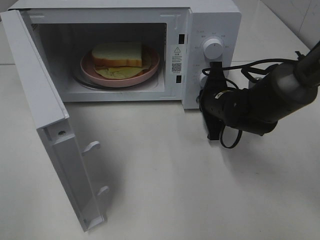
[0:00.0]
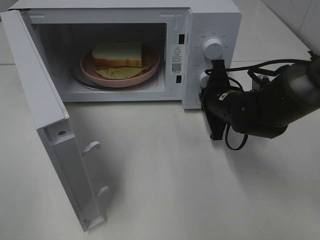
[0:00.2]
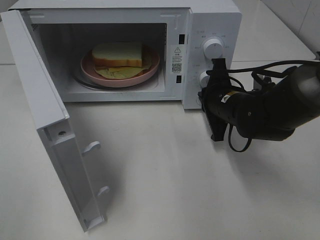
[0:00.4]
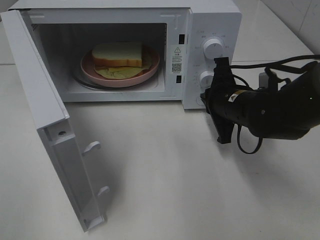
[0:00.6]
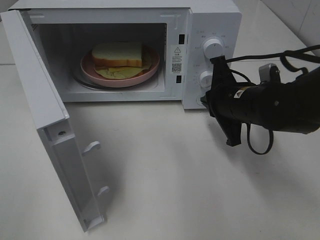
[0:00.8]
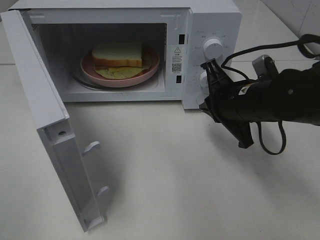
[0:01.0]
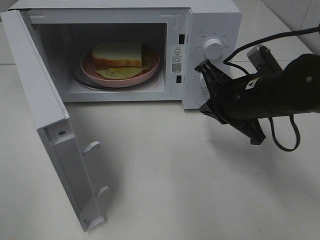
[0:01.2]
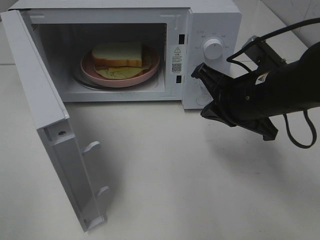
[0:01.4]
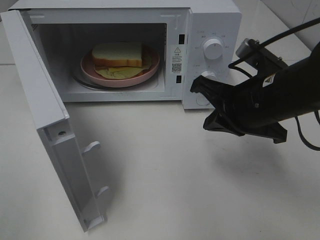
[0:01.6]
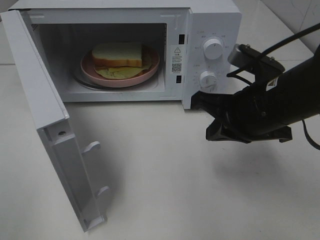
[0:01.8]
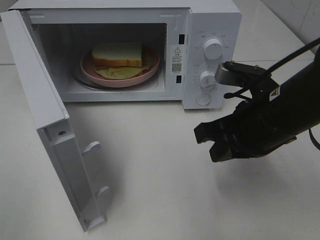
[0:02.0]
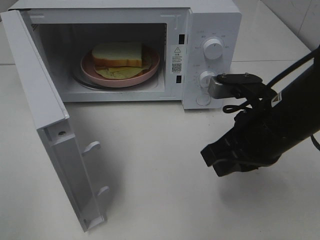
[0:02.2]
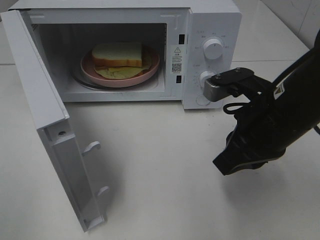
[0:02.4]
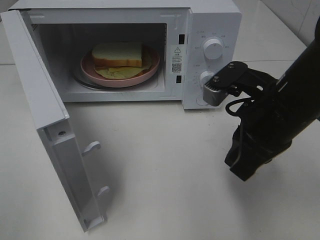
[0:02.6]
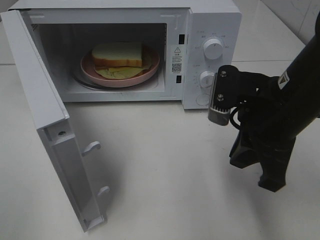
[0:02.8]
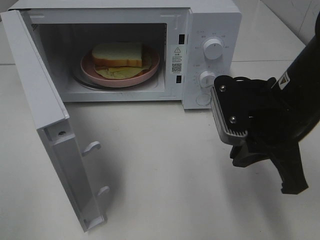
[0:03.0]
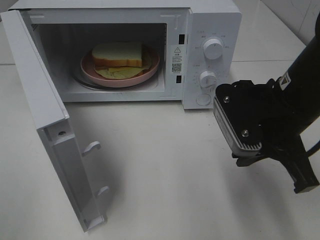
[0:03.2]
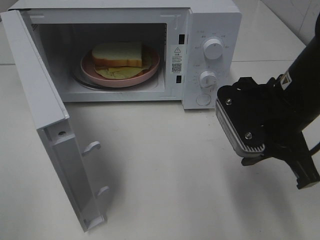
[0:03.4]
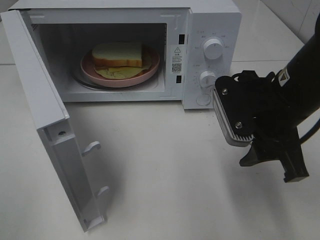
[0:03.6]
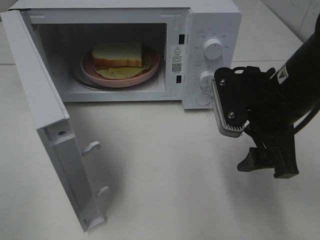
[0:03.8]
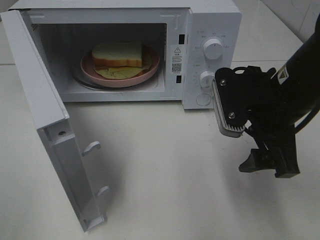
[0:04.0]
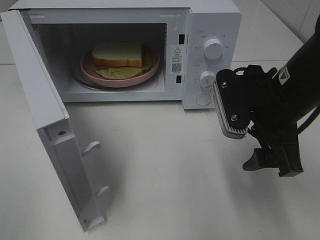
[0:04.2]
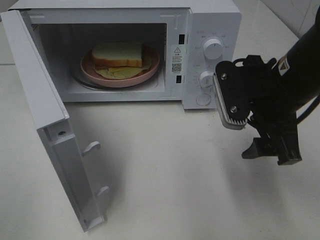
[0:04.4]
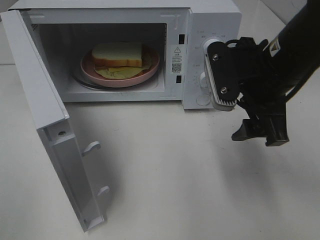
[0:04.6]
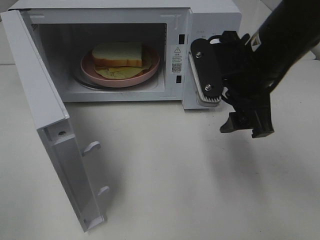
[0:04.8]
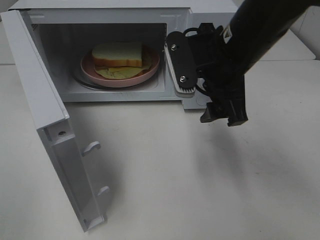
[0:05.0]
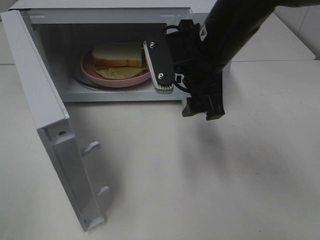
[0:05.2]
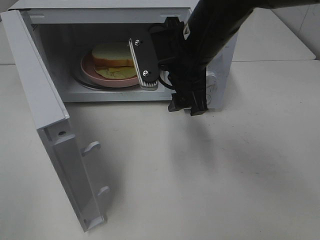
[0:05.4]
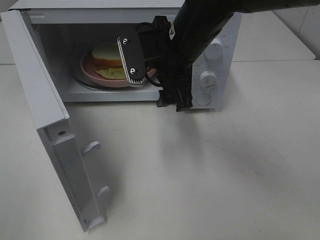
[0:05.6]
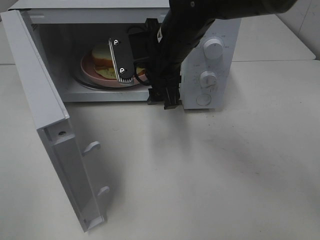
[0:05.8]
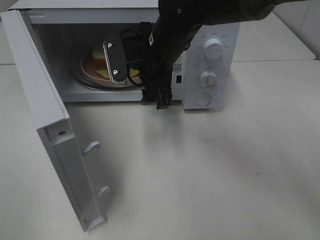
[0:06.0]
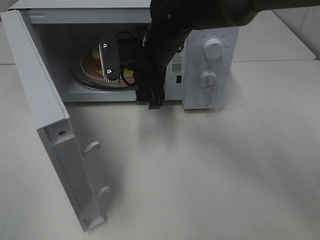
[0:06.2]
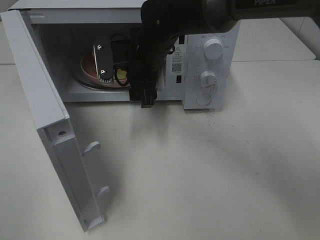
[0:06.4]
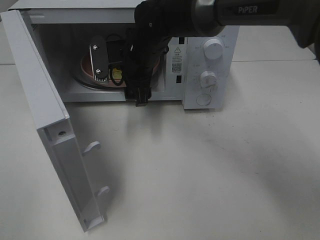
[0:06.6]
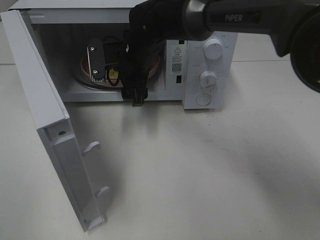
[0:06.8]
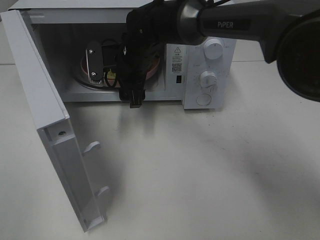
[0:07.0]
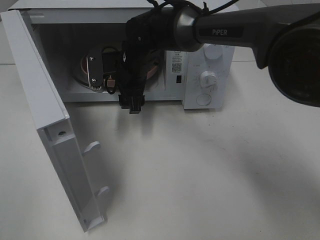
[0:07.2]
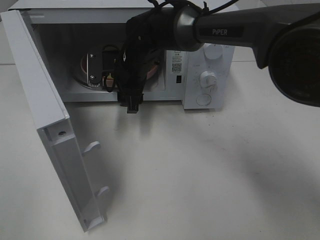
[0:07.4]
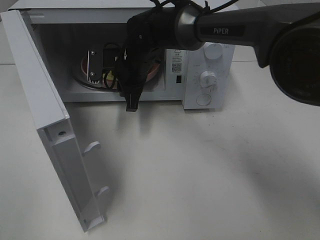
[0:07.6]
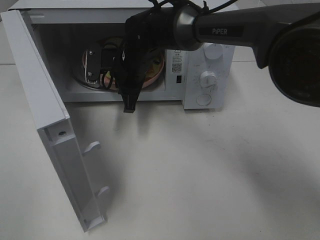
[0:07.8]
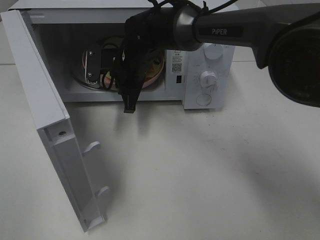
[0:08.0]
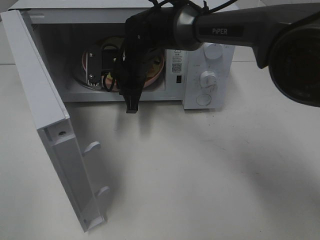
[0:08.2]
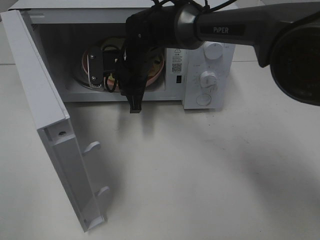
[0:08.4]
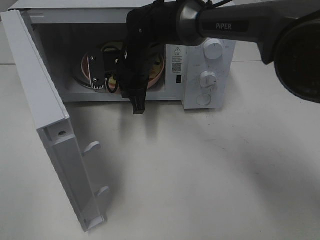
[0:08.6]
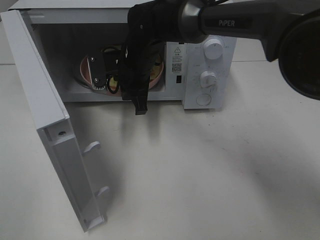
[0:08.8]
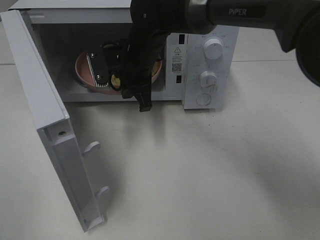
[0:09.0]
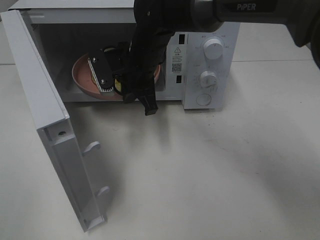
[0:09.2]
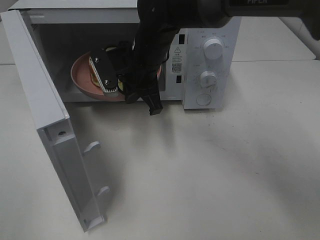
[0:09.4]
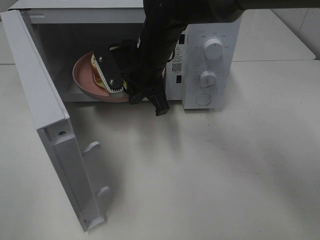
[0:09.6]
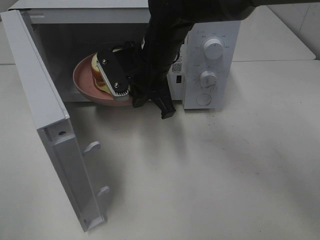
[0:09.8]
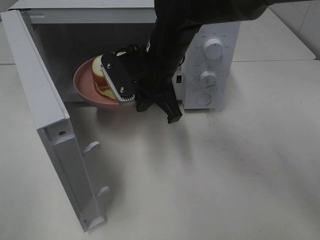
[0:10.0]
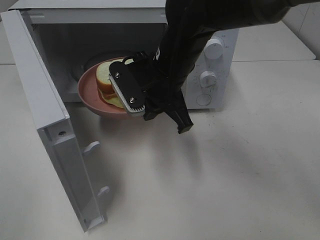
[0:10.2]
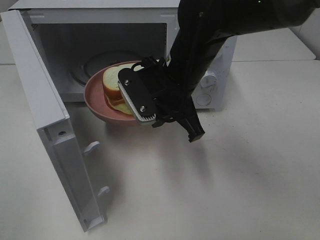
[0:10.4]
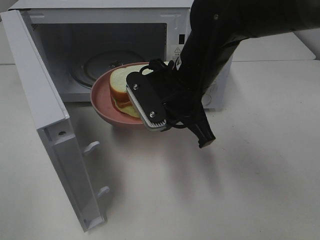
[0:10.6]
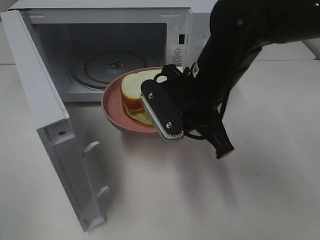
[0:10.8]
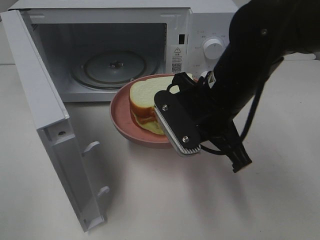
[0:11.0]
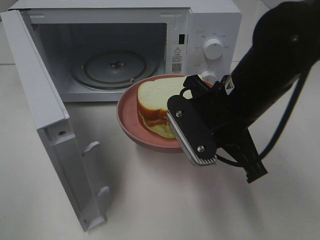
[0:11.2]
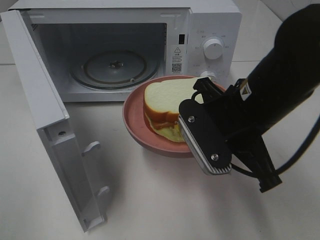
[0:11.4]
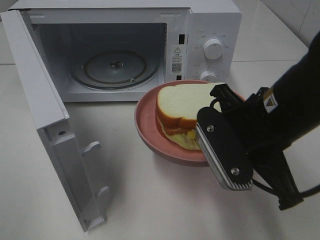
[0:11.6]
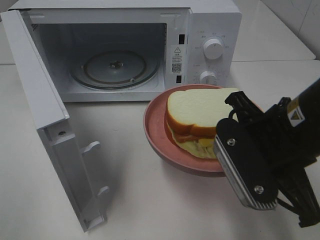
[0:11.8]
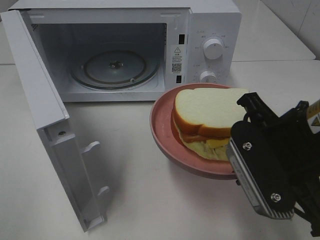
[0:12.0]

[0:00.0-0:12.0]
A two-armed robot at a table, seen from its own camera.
Task of the whole recording: Heat Sandwich.
Step, 0:00.4 to 0:08.8: Right hand: grab the plate with the sandwich.
0:00.0 to 0:01.6: The right gripper travels backward and upward by approximately 15 cm.
0:03.0 to 0:04.4: The right gripper opens up.
0:04.4 to 0:06.0: The right gripper shifts roughly 20 cm to the left and forward.
0:06.0 to 0:07.6: The right gripper heads forward and downward, covering approximately 10 cm, and closes.
0:07.6 to 0:09.0: The grippers stay close to where they were, moving slightly.
0:09.0 to 0:10.4: The right gripper goes about 10 cm backward and to the right.
0:10.4 to 0:12.0: The right gripper shifts approximately 20 cm backward and to the right.

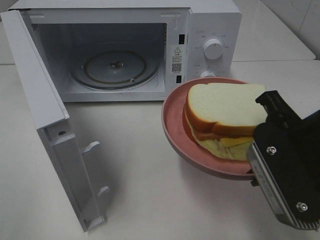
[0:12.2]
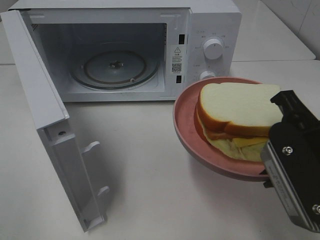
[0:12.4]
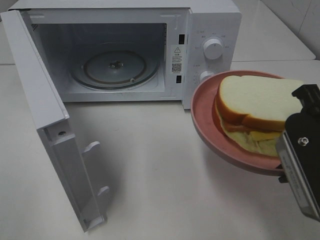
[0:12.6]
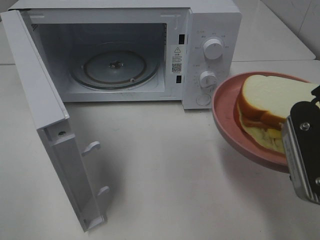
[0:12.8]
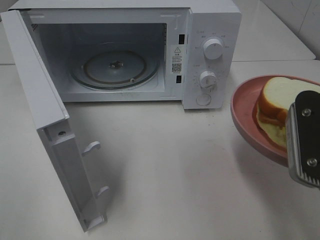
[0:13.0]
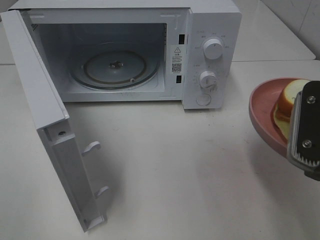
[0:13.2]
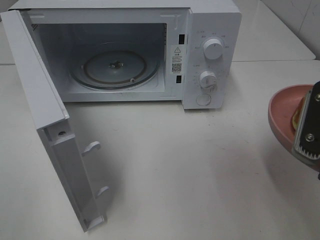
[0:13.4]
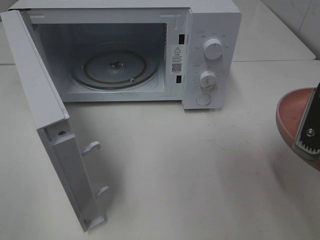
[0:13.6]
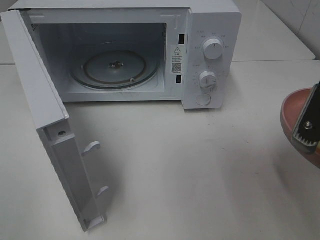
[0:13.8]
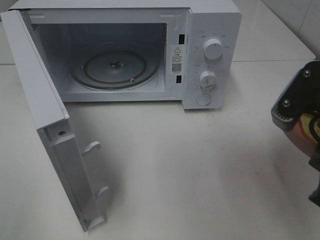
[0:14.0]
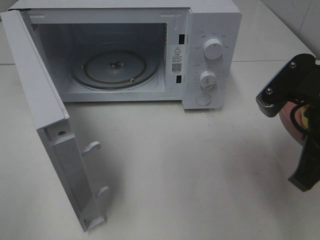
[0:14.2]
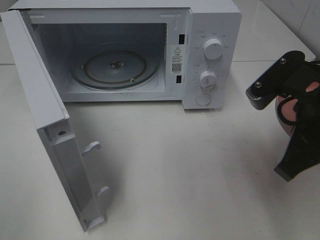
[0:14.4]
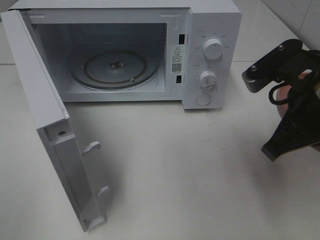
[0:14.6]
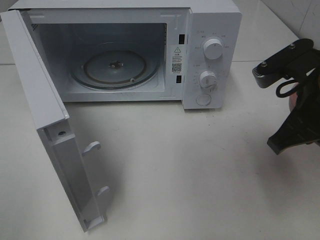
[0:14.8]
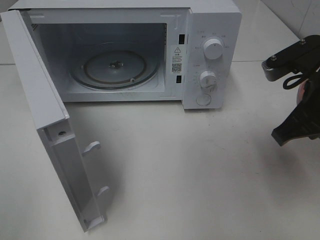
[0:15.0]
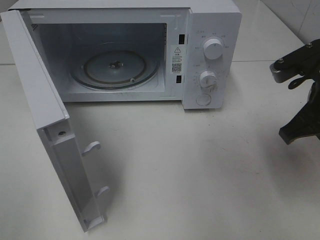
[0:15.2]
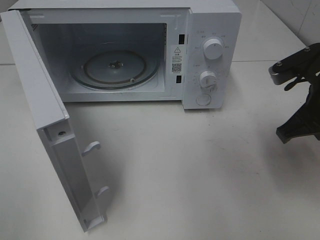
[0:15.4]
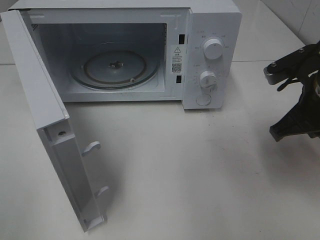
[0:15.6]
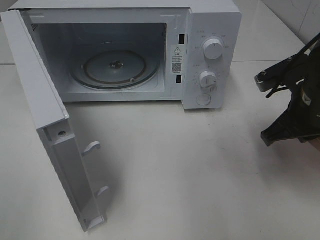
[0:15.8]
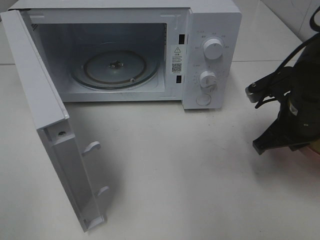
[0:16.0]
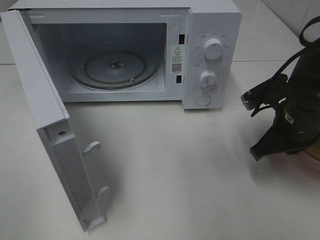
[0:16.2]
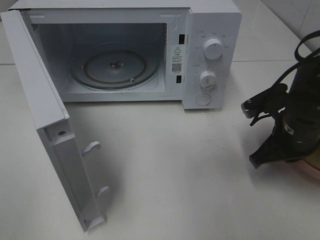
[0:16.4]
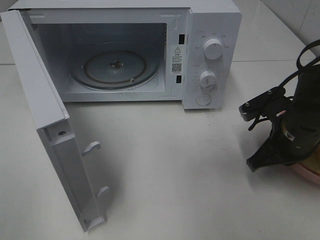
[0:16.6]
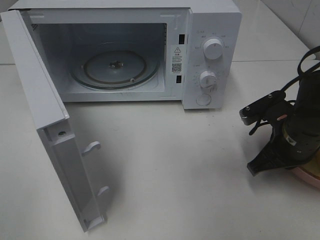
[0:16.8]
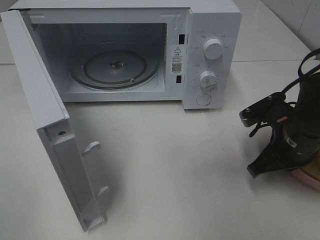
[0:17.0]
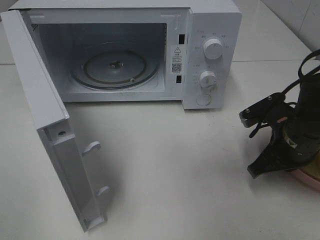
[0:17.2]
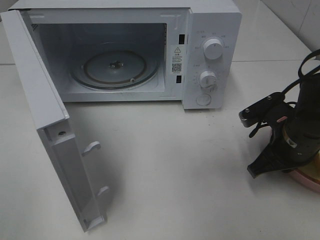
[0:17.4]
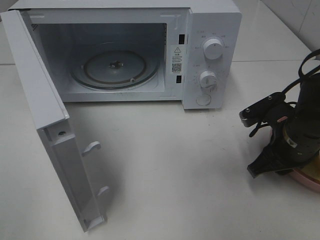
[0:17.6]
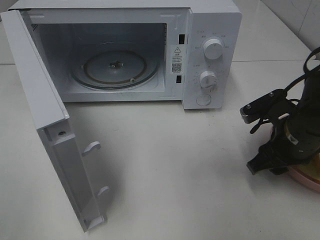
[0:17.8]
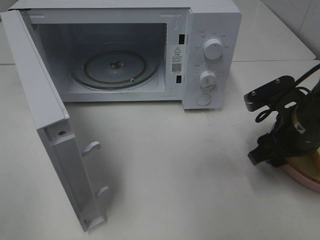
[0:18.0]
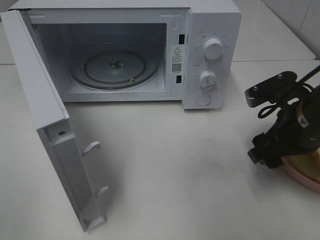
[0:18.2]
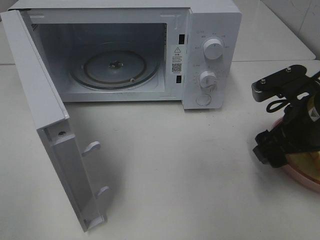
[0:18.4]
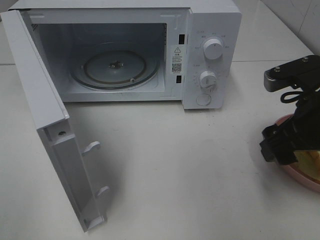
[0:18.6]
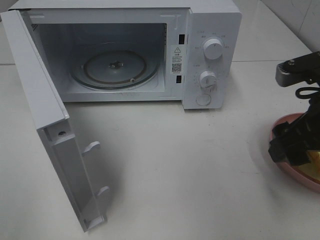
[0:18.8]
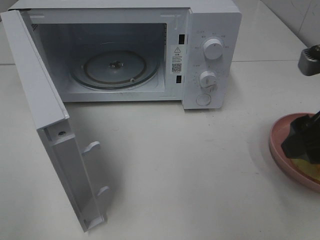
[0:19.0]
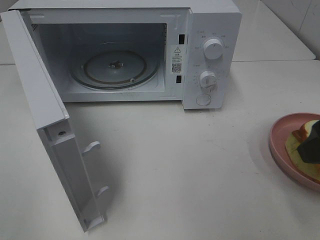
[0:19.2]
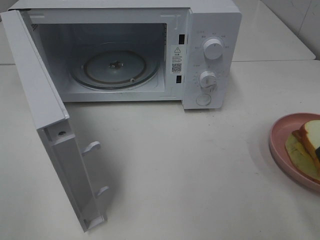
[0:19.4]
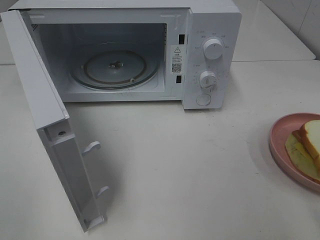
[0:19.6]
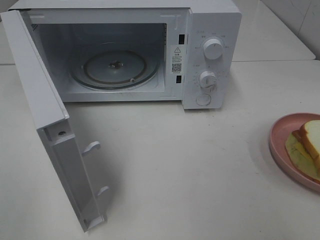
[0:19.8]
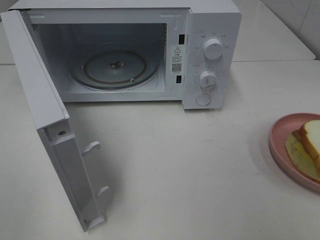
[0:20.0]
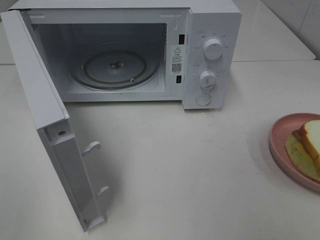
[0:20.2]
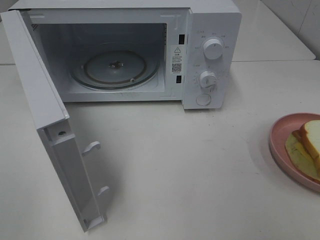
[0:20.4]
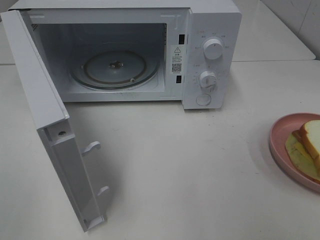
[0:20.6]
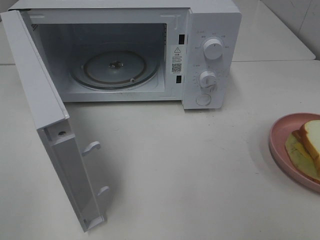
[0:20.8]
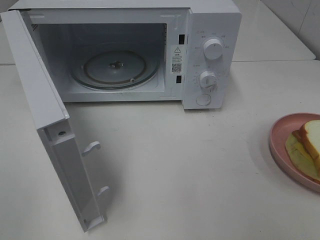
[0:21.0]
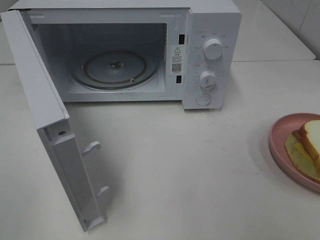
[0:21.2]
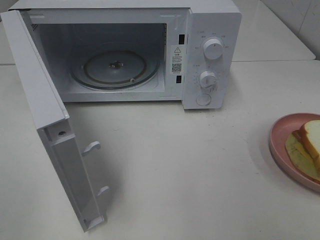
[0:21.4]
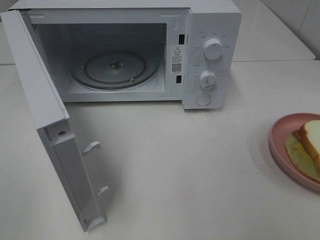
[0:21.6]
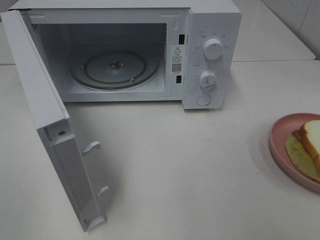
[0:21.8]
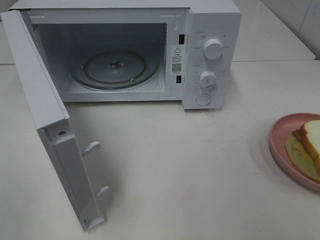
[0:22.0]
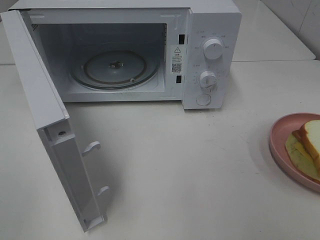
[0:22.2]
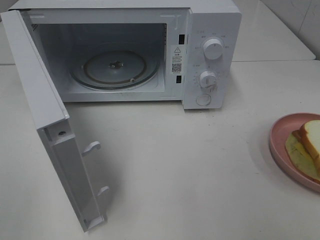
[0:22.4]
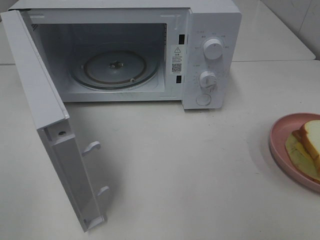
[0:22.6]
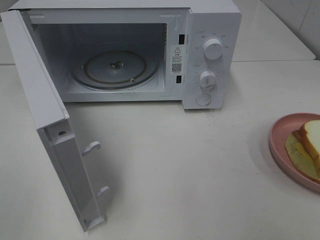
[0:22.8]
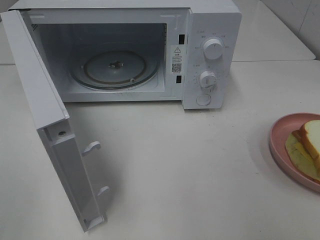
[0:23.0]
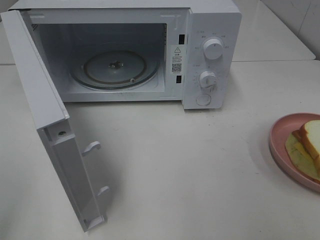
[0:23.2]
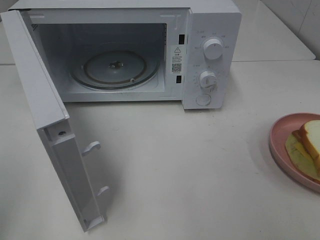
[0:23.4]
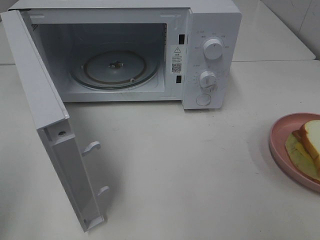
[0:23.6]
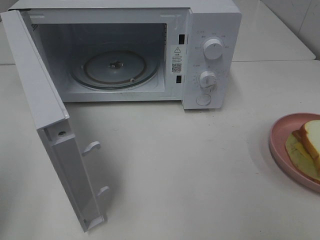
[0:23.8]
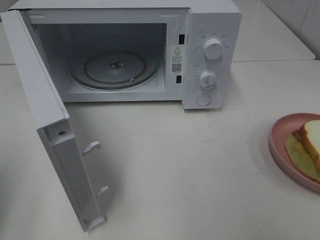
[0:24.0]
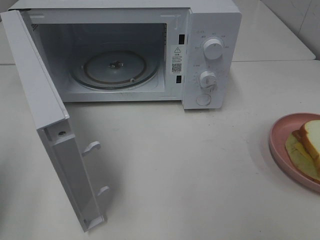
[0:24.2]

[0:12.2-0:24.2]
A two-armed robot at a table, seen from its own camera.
Task of the whole recording: Heat Sandwich.
Step, 0:12.2 to 0:18.6: Right hand: place the plate on the table.
0:13.8 to 0:15.2: The right gripper moves forward, about 10 cm.
0:15.2 to 0:16.6: The right gripper travels downward by approximately 10 cm.
0:16.6 to 0:18.2: The right gripper opens its fingers.
0:18.2 to 0:19.8: The right gripper moves backward and upward, roughly 25 cm.
0:21.2 to 0:22.6: Neither gripper changes place.
